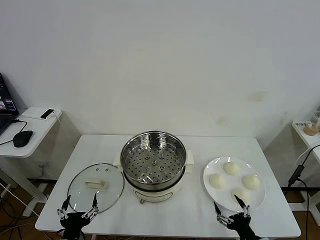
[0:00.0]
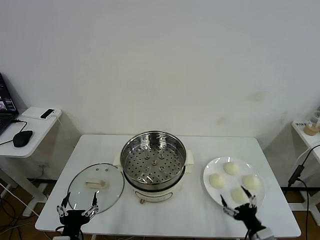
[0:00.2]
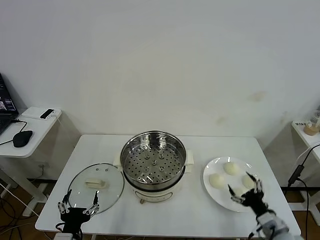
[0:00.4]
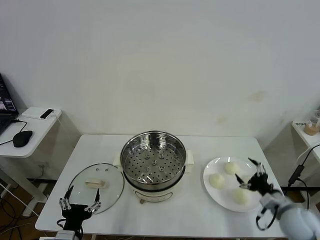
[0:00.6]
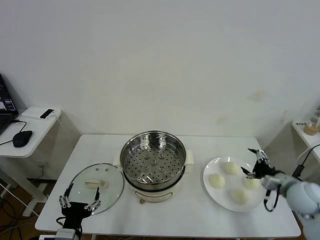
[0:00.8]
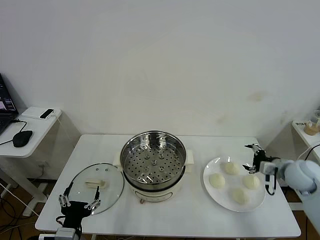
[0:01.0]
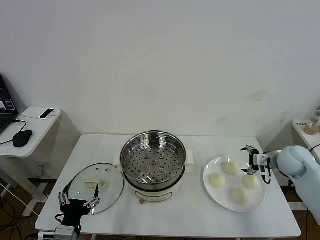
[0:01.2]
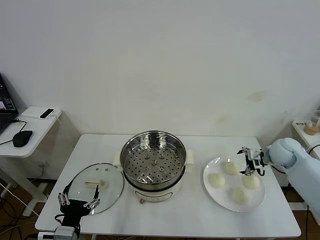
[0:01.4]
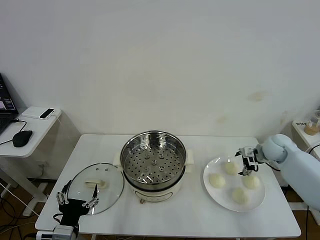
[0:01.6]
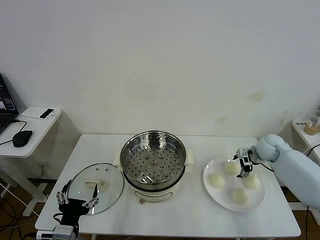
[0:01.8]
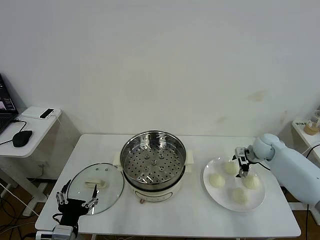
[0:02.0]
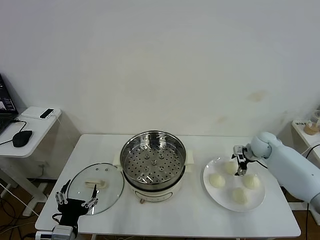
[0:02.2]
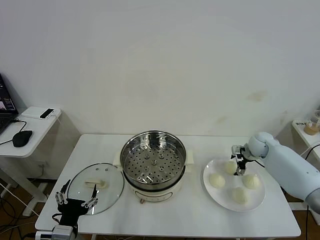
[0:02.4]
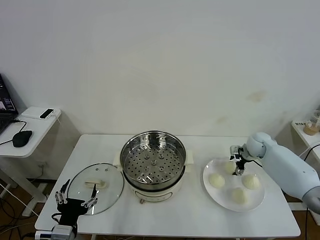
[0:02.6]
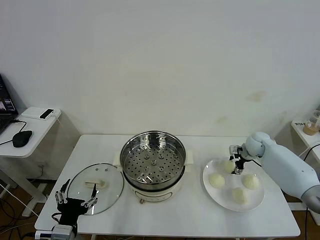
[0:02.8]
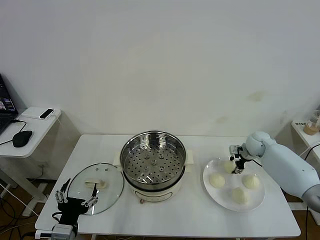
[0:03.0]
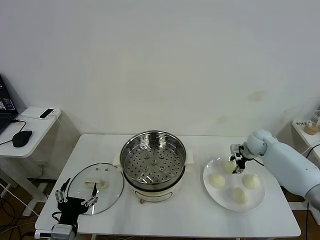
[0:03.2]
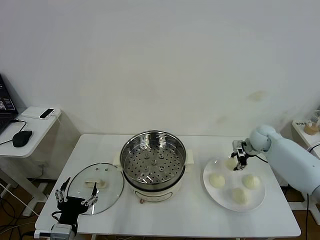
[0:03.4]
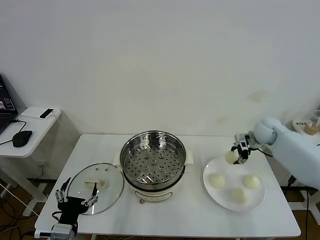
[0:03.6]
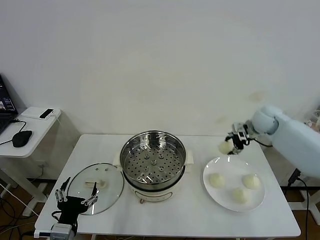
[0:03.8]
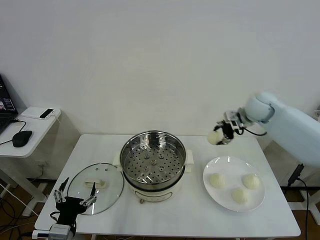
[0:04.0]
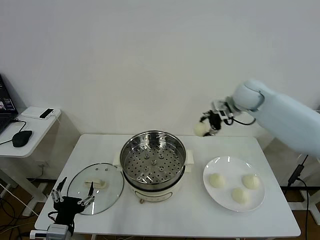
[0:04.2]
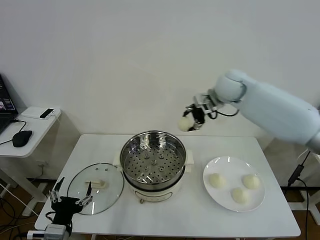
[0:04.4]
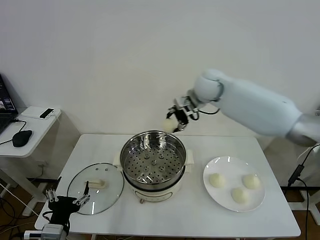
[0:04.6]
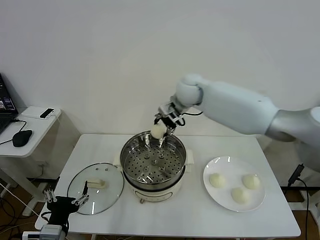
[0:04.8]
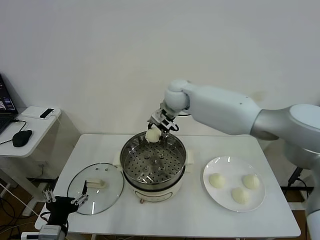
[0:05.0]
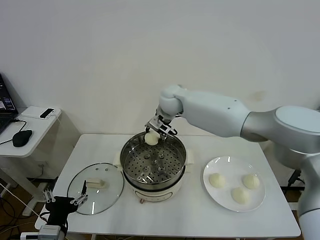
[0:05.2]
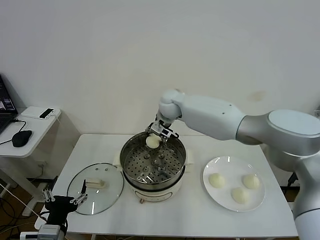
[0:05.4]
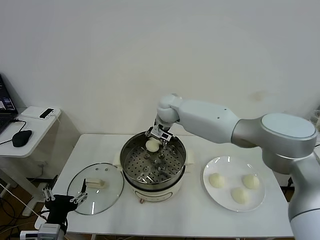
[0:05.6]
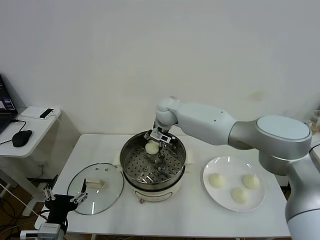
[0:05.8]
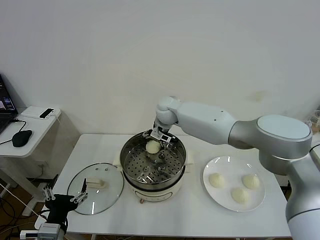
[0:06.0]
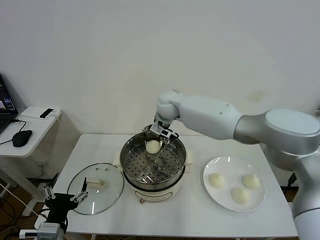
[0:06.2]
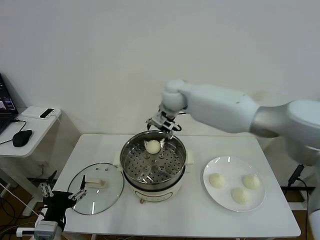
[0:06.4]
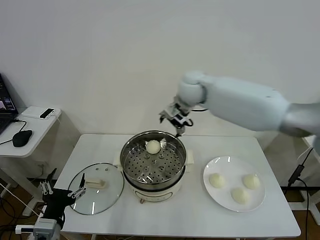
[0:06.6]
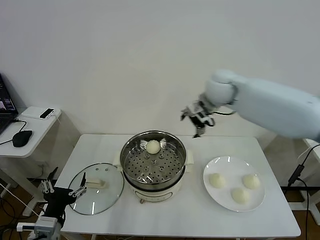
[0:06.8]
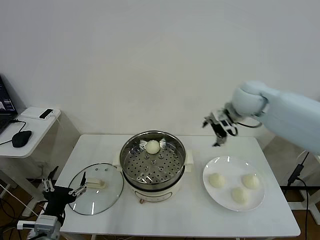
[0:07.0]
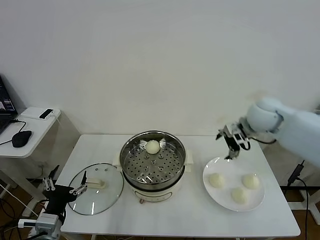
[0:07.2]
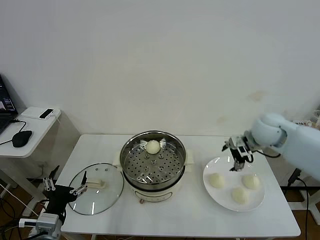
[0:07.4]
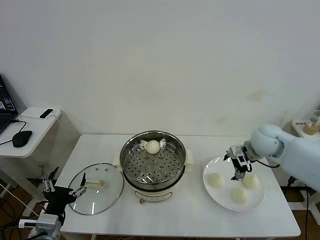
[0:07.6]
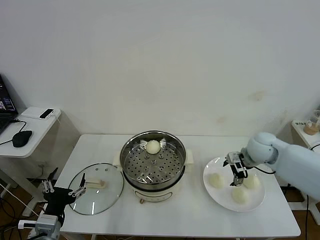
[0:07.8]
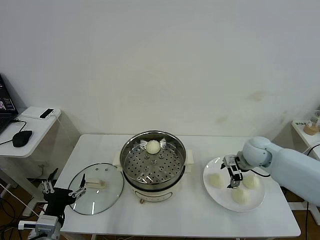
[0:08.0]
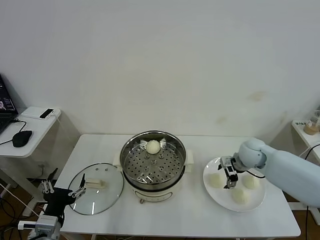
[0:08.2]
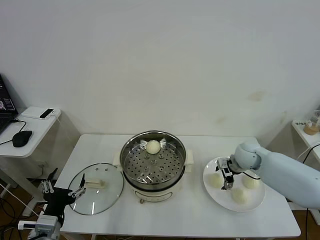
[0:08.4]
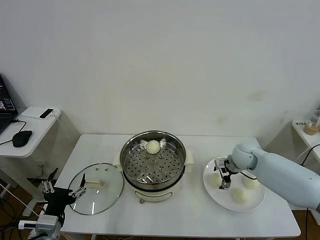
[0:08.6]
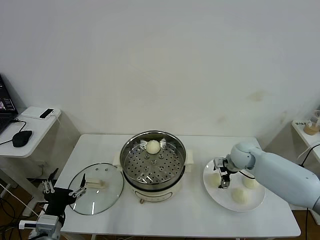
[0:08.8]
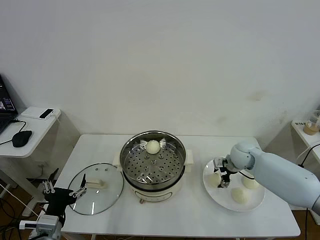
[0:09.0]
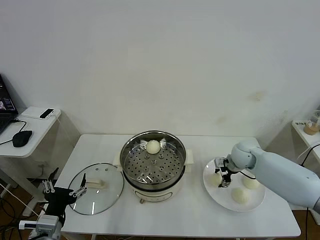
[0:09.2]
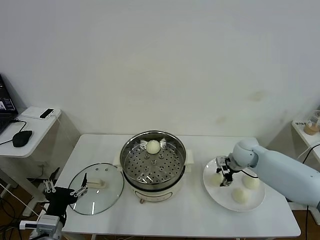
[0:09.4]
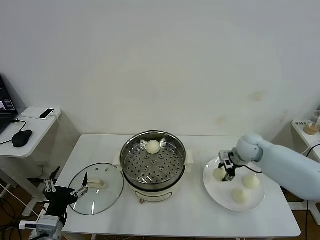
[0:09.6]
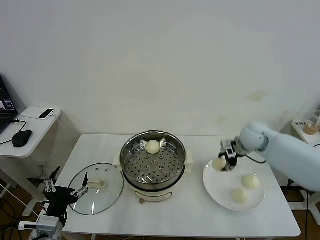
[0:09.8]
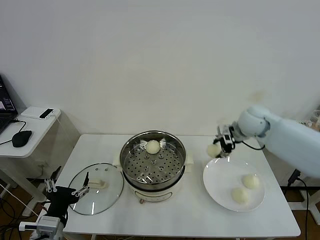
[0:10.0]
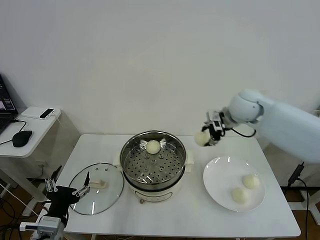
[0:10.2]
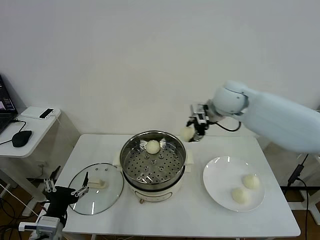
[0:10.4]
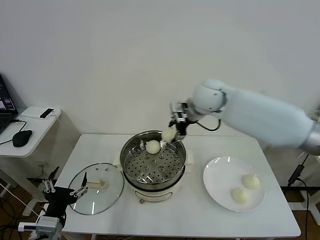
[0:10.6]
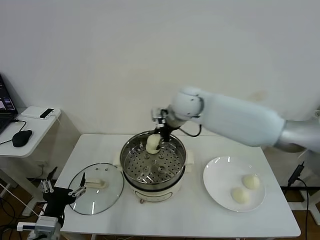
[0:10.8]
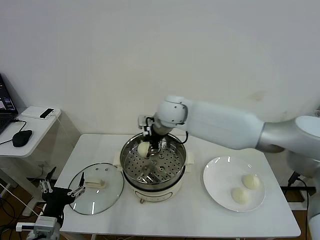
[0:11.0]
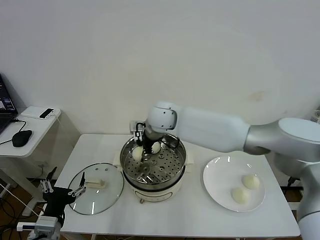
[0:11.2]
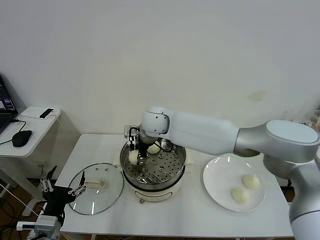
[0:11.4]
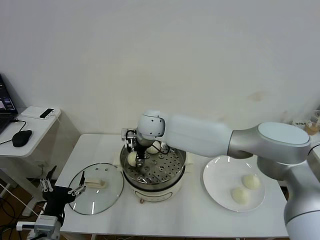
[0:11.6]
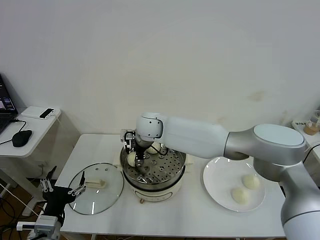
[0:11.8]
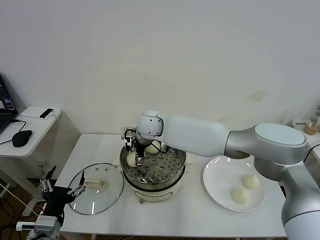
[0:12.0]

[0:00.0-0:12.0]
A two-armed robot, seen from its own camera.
Task of the whole recording: take steamed baozi put them in steamer then cover it.
Step, 0:00.0 to 0:02.8: Grasp the baozi in the plate with right gripper.
Step, 0:03.2 to 0:06.2: Place the baozi on the steamer with right gripper.
Step, 0:06.4 to 0:09.2: Grasp the baozi in the plate with right gripper.
0:01.6 to 0:03.0: The right gripper is displaced forward by about 5 cm, and closes.
0:03.0 to 0:04.4: The right gripper is displaced upward and to the left by some 30 cm.
0:04.4 to 0:06.0: The right gripper travels to the left and downward by about 20 cm, and opens.
0:06.0 to 0:07.6: The right gripper is displaced to the right and backward by approximately 35 cm.
0:07.6 to 0:09.0: The right gripper shifts approximately 10 cm downward, and closes.
0:09.0 to 0:10.4: The right gripper is displaced upward and to the left by about 25 cm, and closes its fingers.
0:10.4 to 0:12.0: The right gripper shifts approximately 25 cm to the left and downward, and opens up.

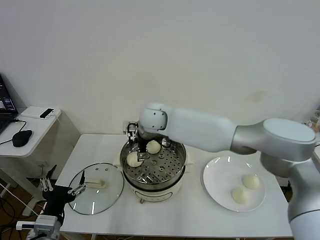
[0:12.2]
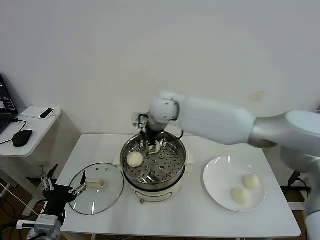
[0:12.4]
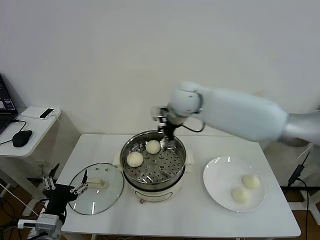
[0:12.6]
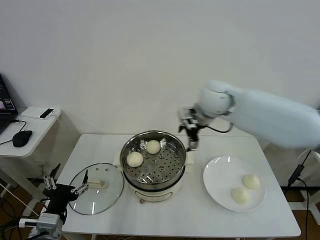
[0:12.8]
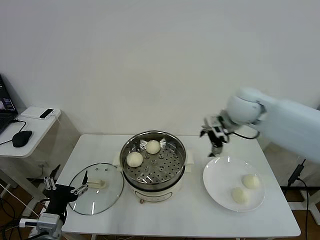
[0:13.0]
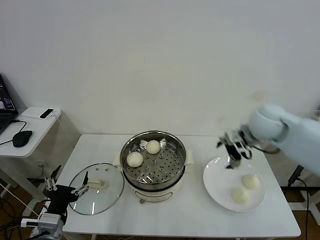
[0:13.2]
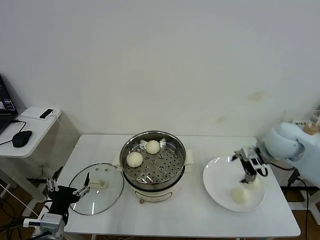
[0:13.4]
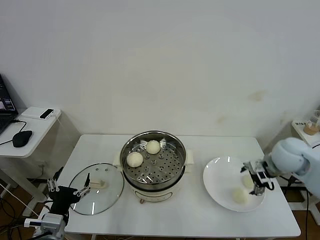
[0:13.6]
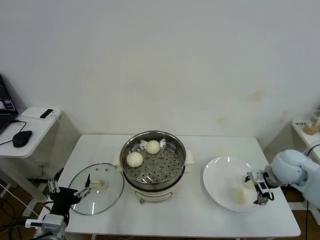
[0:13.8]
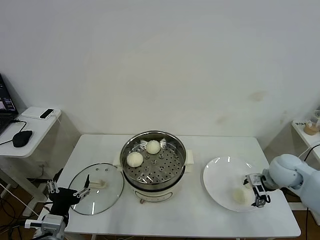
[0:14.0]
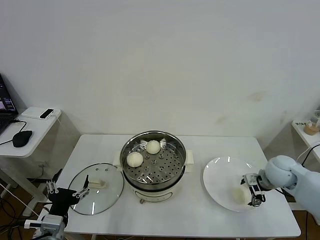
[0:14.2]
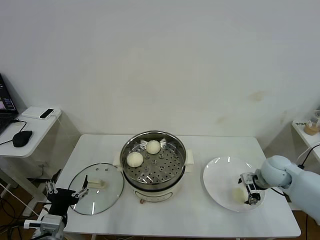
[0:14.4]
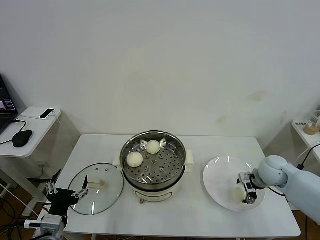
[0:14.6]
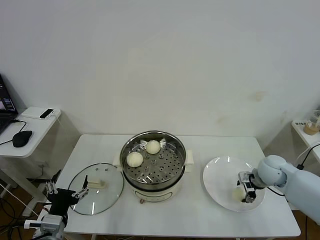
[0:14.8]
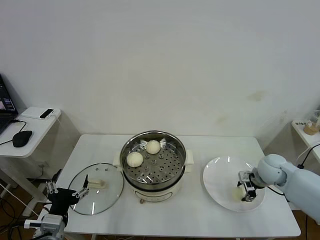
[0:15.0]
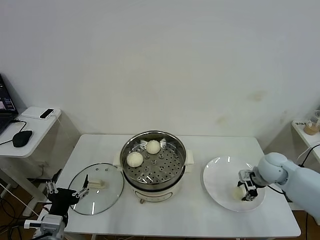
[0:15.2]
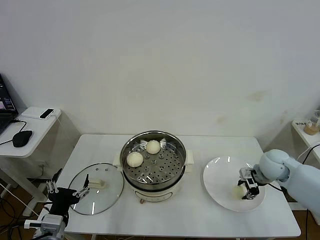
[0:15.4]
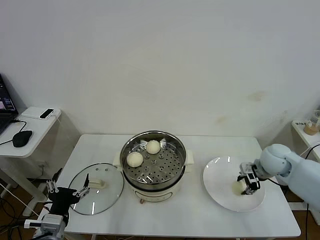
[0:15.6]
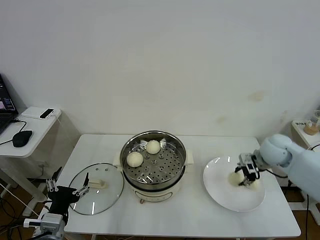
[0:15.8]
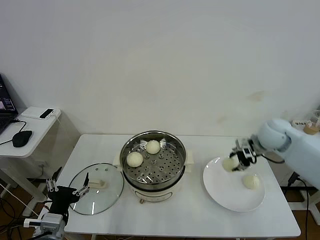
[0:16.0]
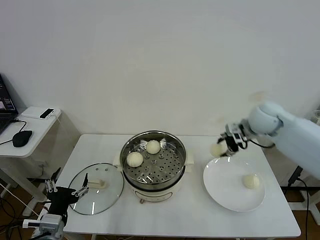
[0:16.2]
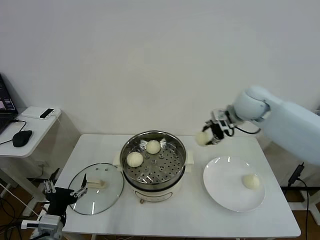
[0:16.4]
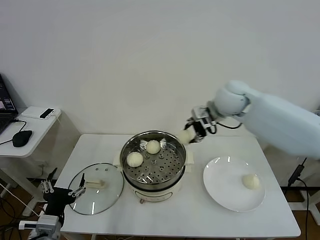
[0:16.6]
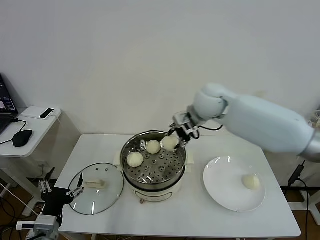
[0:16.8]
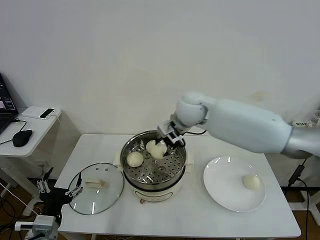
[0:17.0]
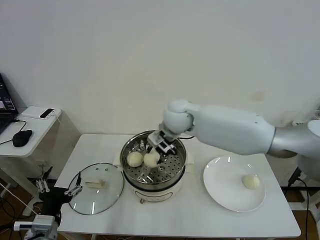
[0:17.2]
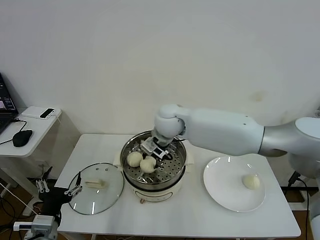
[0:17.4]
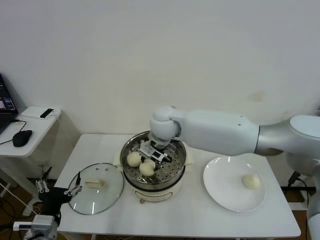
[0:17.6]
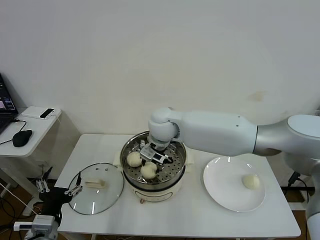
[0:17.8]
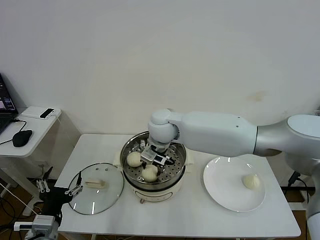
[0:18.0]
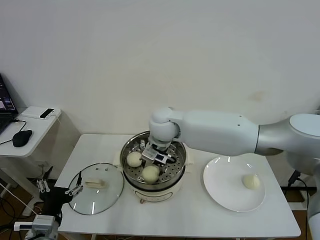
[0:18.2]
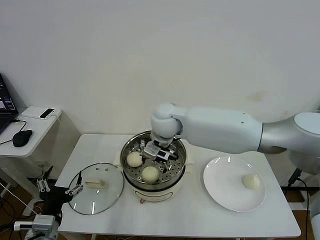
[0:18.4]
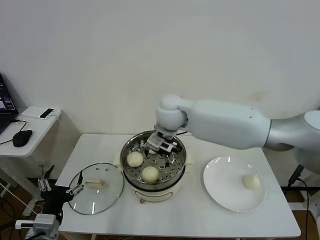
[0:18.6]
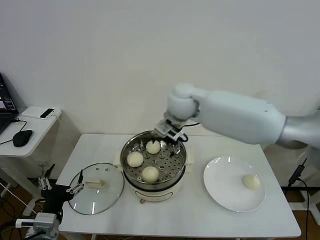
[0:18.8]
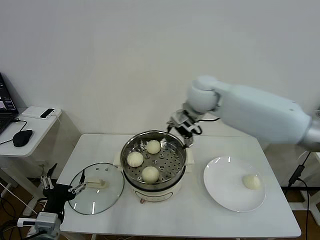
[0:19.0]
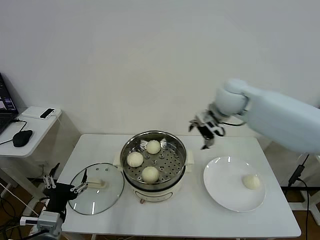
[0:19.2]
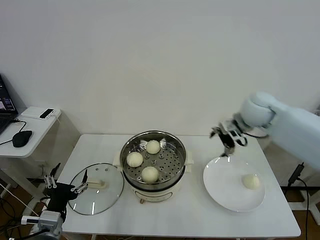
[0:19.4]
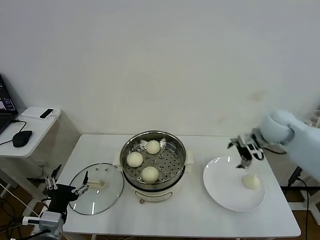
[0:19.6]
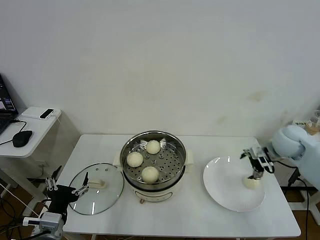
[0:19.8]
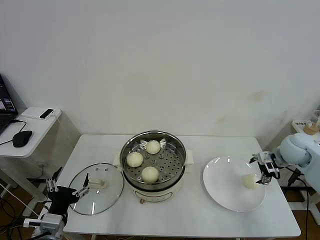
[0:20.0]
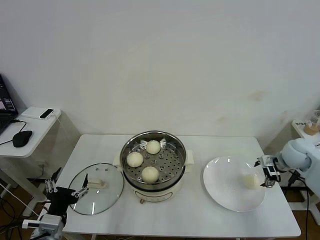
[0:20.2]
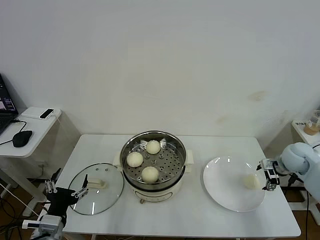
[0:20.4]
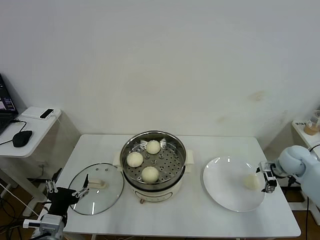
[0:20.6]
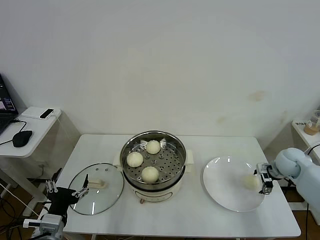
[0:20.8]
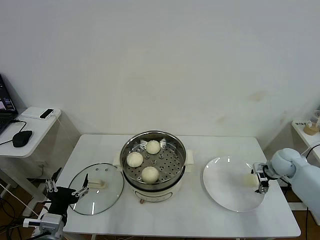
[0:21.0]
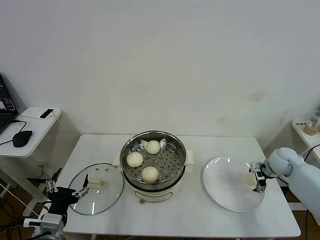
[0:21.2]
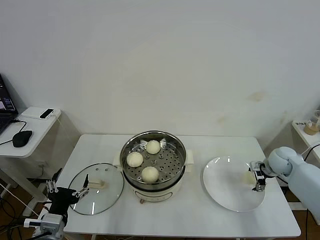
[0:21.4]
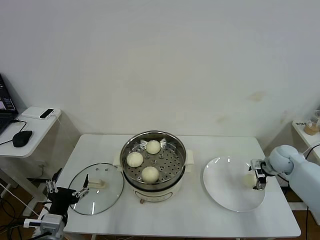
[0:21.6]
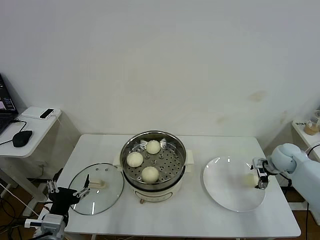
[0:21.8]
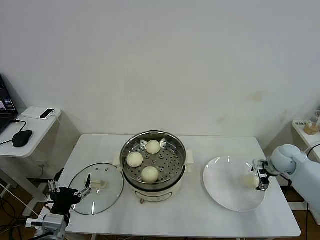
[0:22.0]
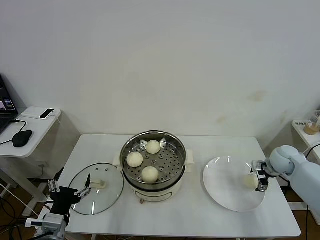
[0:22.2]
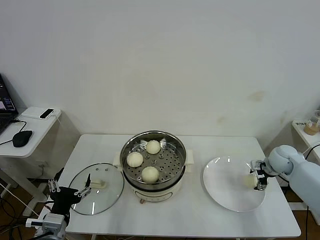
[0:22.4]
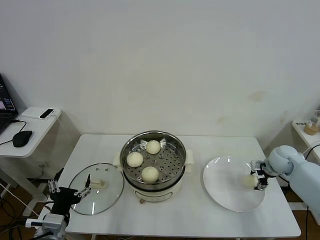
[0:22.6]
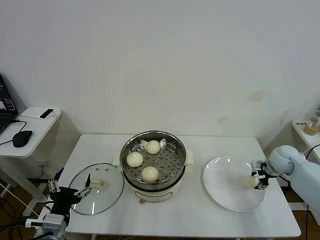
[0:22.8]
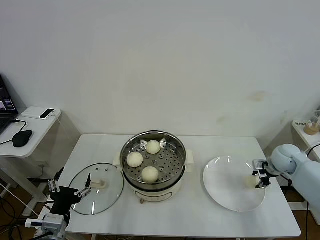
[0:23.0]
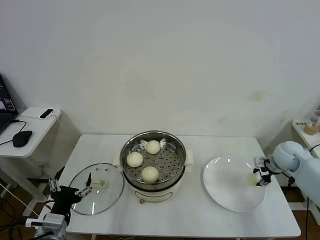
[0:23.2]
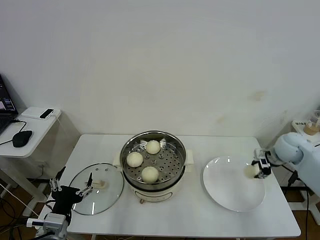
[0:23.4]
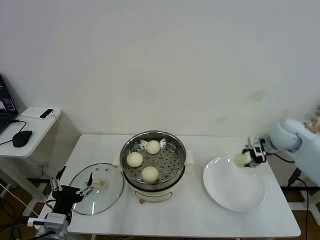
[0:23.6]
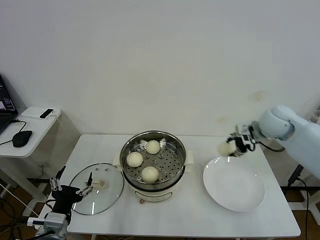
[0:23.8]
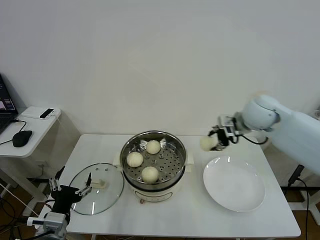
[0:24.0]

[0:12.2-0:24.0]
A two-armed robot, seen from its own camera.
Task of the whole recording: take steamed baozi put them in steamer then cover it.
Step, 0:12.4 to 0:15.4: Grasp the baozi in the plate with right gripper.
Step, 0:15.6 to 0:18.2: Place the baozi on the steamer with right gripper.
Step, 0:18.6 to 0:23.0: Grasp the baozi in the plate with right gripper.
0:12.2 to 0:13.6: The right gripper is displaced to the right by approximately 40 cm.
0:13.6 to 0:15.2: The right gripper shifts approximately 10 cm downward, and closes its fingers.
0:15.2 to 0:16.6: The right gripper moves upward, to the left and forward, roughly 30 cm.
0:16.6 to 0:18.2: The right gripper moves to the left, roughly 20 cm.
0:18.2 to 0:19.6: The right gripper goes roughly 35 cm to the right, and opens its fingers.
0:19.6 to 0:21.0: The right gripper is displaced downward and to the right by approximately 20 cm.
0:21.0 to 0:22.6: The right gripper closes up.
0:22.6 to 0:24.0: The right gripper is displaced upward and to the left by approximately 25 cm, and closes its fingers.
